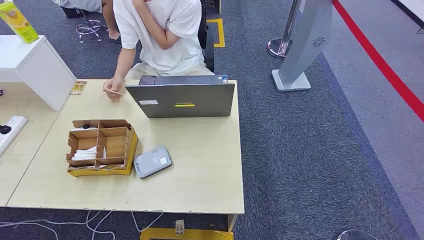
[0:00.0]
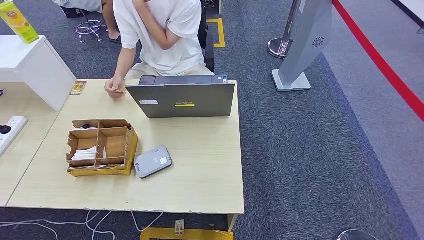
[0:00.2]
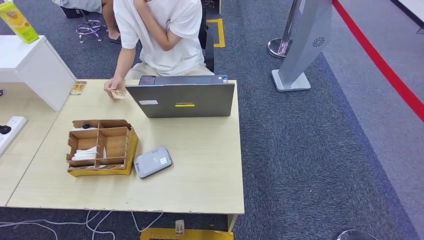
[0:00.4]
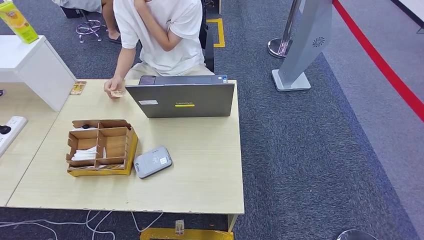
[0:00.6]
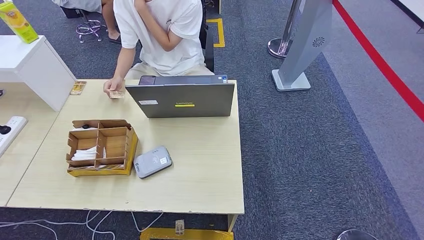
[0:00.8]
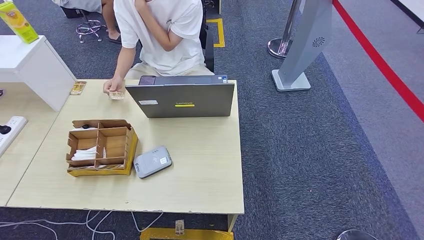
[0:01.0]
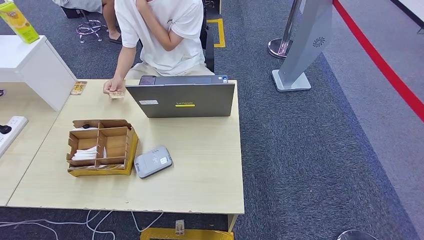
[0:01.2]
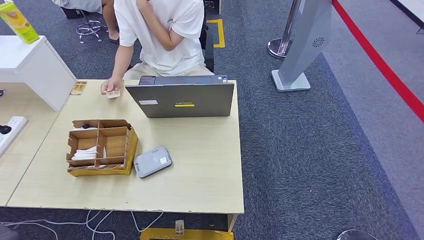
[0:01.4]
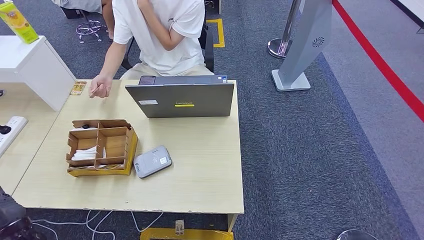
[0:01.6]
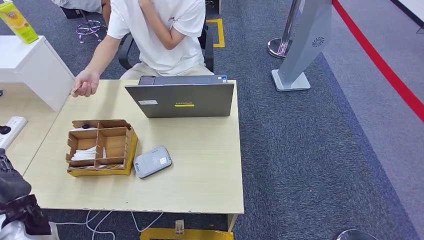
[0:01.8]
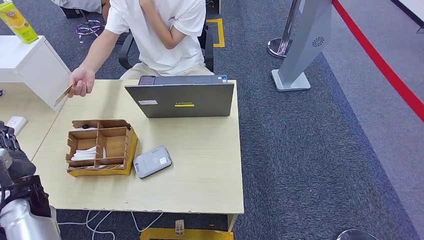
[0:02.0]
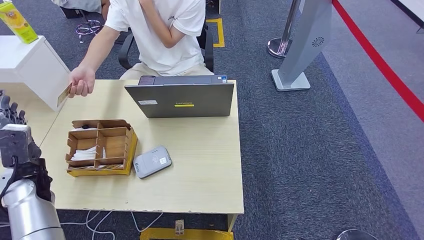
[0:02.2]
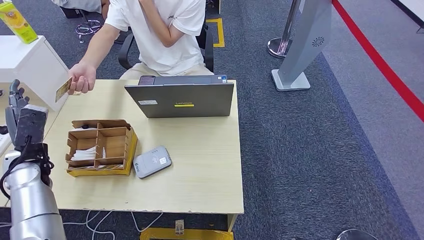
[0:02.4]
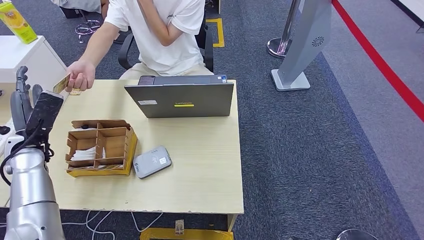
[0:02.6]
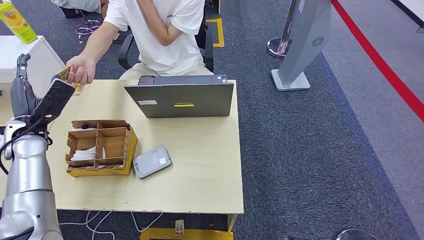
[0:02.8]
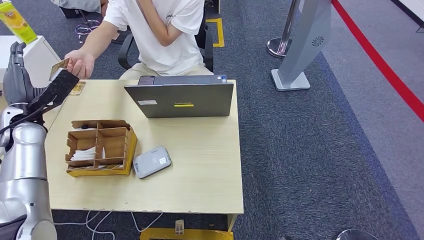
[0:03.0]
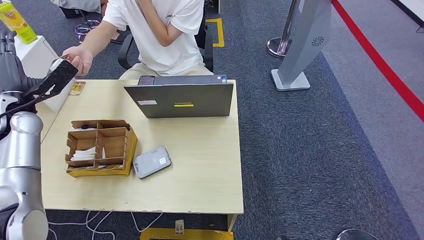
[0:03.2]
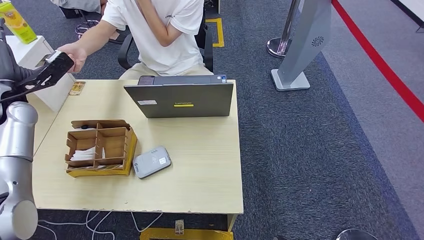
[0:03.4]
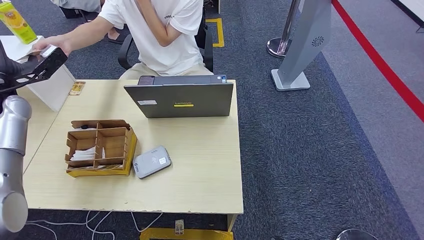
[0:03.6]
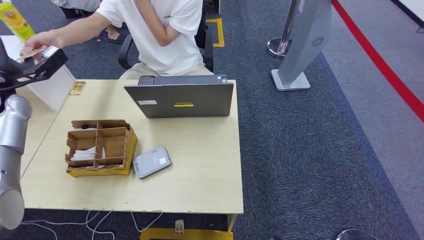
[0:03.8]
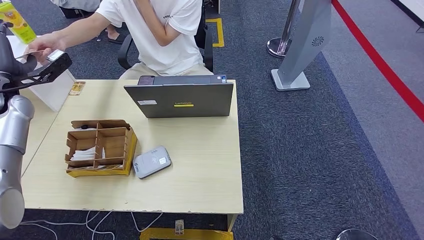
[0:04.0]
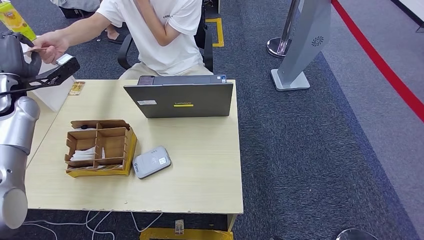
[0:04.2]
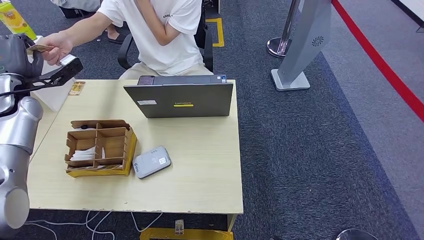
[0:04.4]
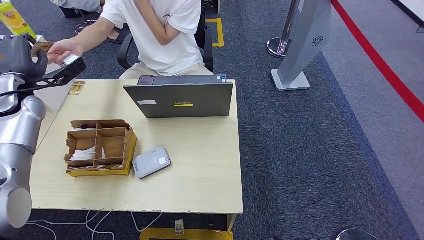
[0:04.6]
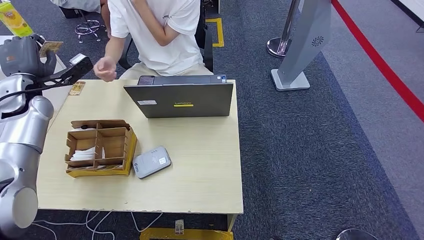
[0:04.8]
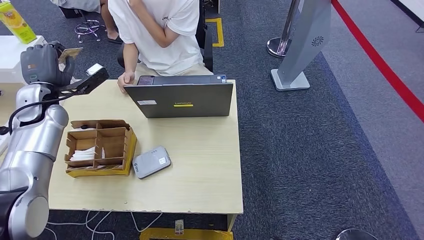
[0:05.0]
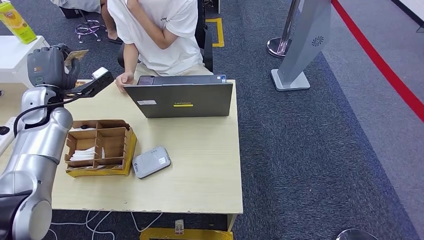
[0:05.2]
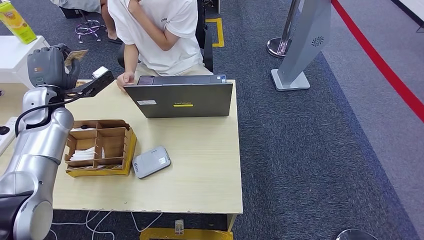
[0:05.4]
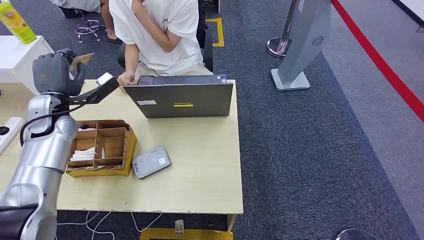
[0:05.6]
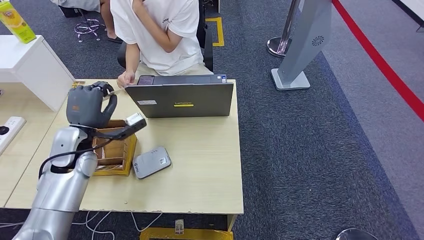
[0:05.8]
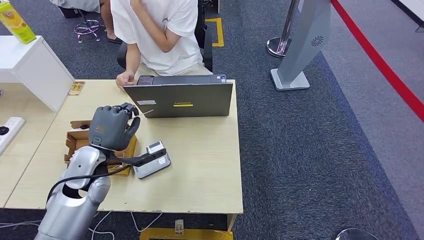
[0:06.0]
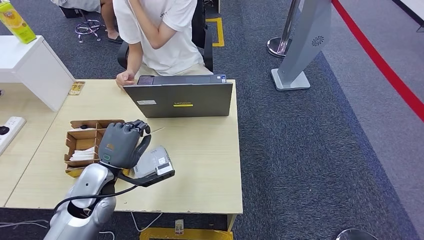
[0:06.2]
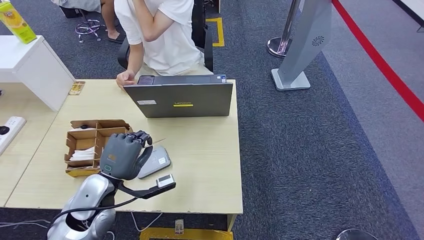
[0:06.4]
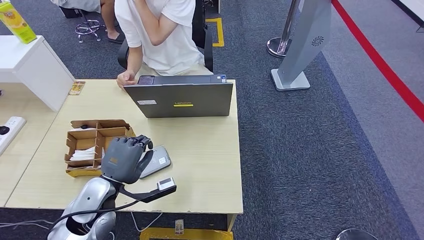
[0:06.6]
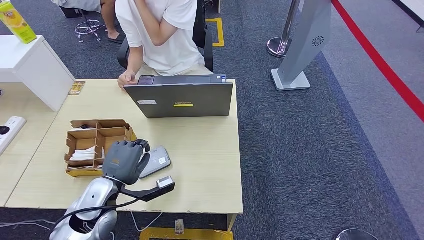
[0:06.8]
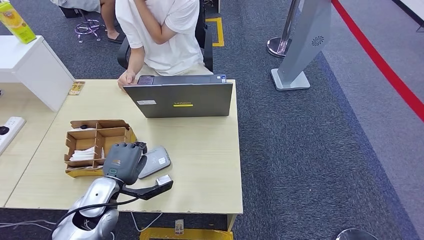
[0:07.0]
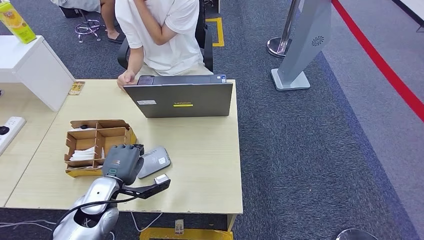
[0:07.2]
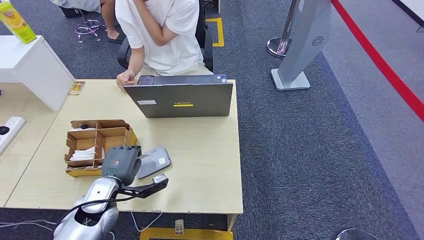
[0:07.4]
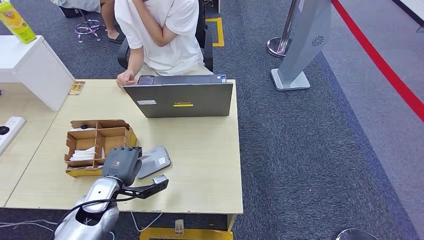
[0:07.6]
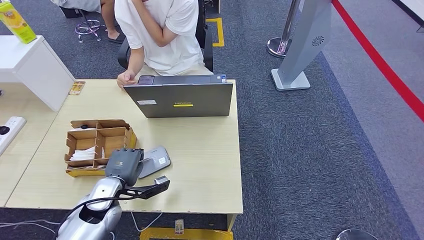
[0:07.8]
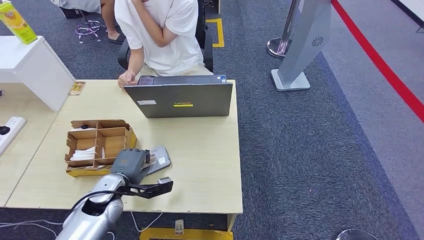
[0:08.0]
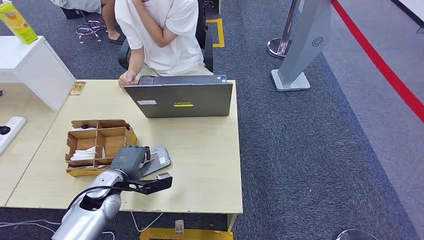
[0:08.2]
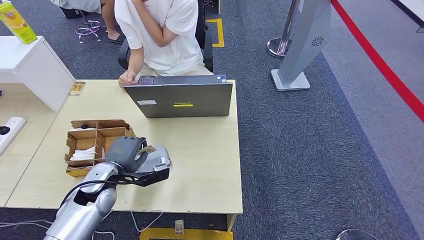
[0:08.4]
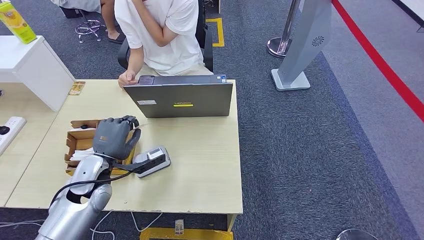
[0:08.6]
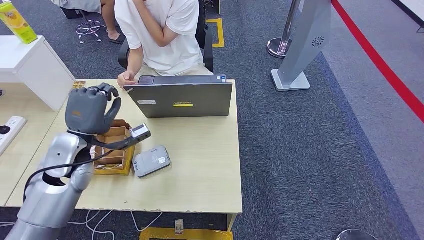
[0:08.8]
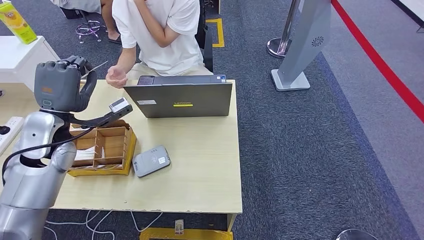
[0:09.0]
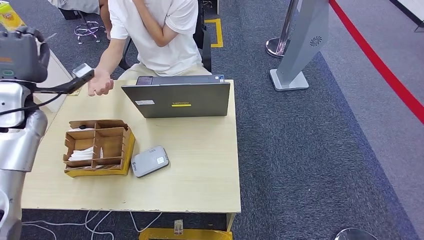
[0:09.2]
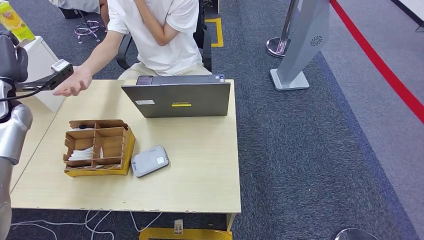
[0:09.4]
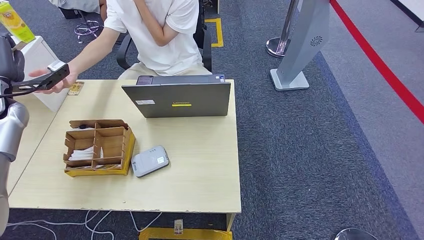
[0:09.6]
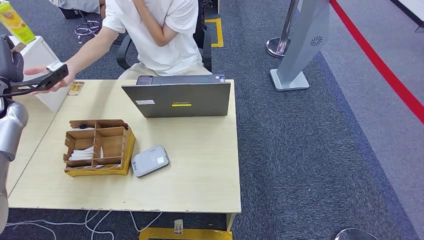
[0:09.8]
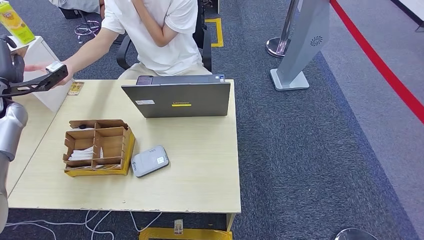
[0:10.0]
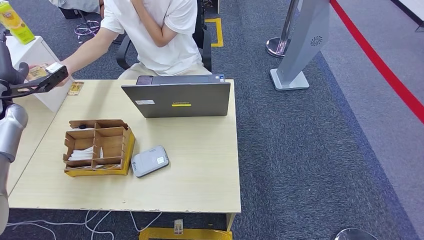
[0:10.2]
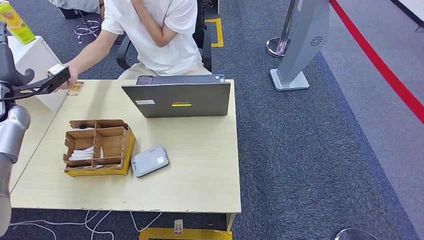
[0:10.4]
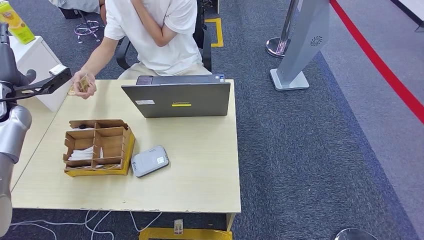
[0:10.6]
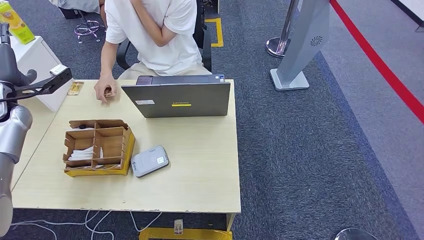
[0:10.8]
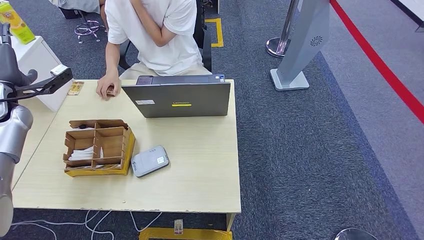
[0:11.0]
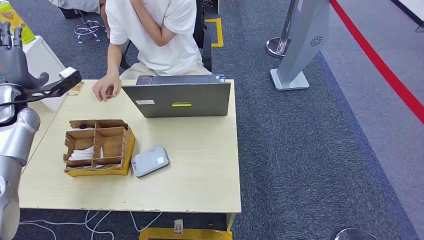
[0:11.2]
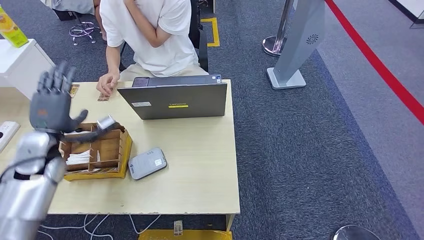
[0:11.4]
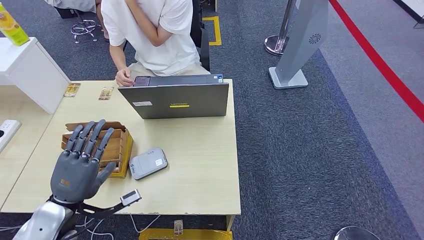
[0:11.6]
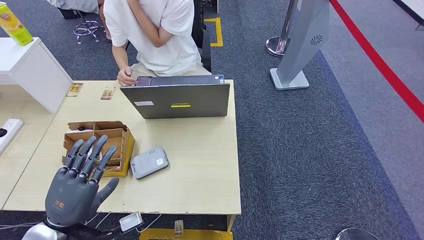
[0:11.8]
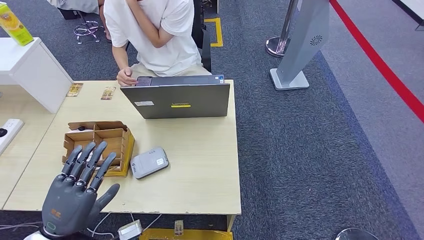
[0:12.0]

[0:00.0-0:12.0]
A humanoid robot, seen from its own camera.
Step, 0:00.0 to 0:04.6: Take the ID card from the person's hand.
Step, 0:04.8 to 0:08.0: Place the ID card on the card reader.
Step, 0:08.2 to 0:10.4: Hand the ID card to the person.
0:01.6 to 0:03.0: The left hand moves forward and upward, some 30 cm.
0:03.0 to 0:04.4: The left hand heads upward, covering about 5 cm.
0:04.4 to 0:06.0: The left hand moves to the right, backward and downward, about 25 cm.
0:06.0 to 0:07.6: The left hand travels downward and backward by approximately 10 cm.
0:07.6 to 0:09.0: The left hand is displaced upward and forward by about 20 cm.
0:09.0 to 0:10.4: The left hand shifts about 15 cm to the left and forward.
0:10.4 to 0:12.0: The left hand travels backward, to the right and downward by roughly 35 cm.

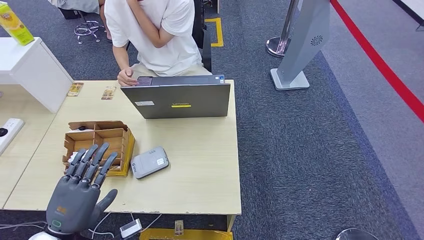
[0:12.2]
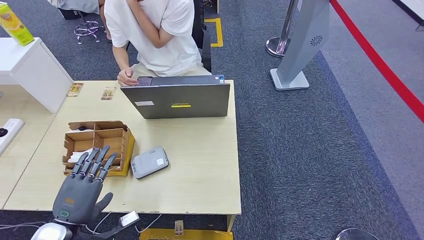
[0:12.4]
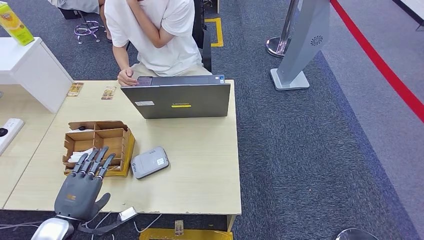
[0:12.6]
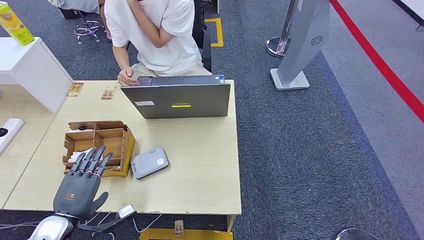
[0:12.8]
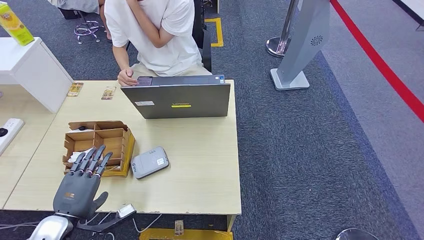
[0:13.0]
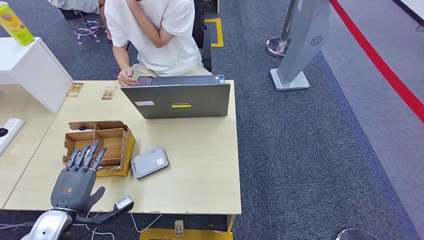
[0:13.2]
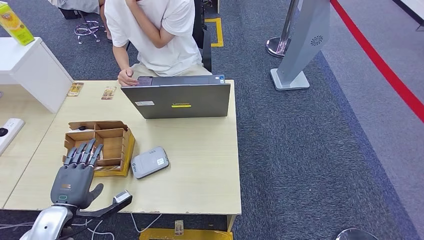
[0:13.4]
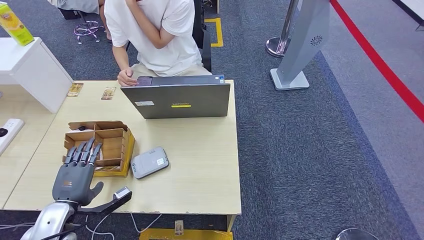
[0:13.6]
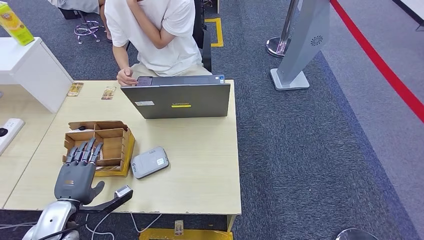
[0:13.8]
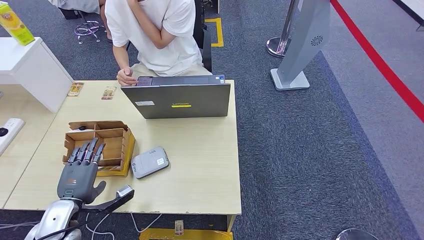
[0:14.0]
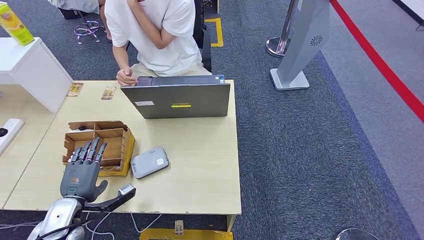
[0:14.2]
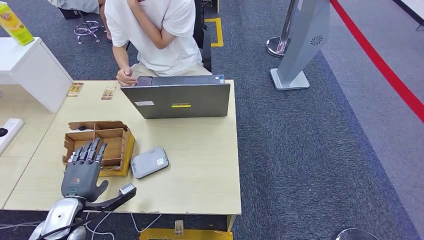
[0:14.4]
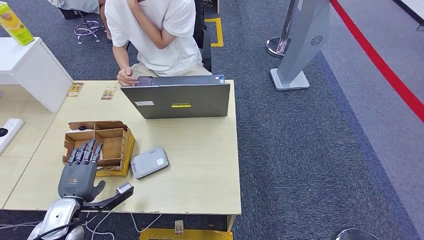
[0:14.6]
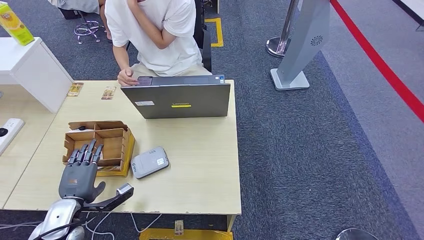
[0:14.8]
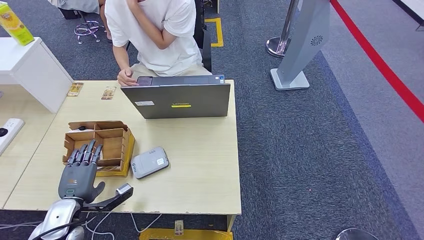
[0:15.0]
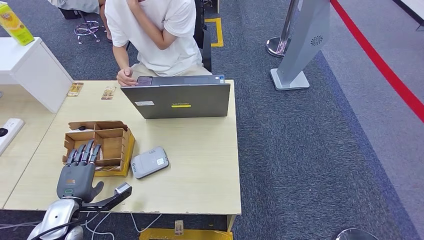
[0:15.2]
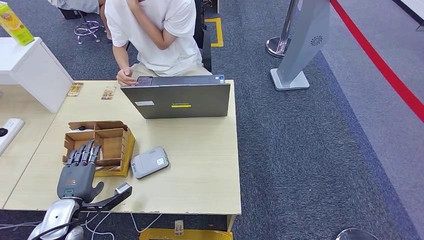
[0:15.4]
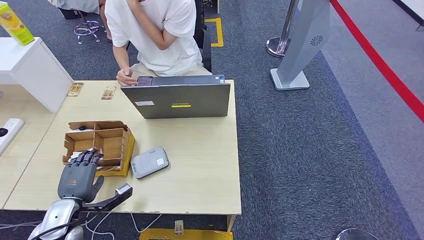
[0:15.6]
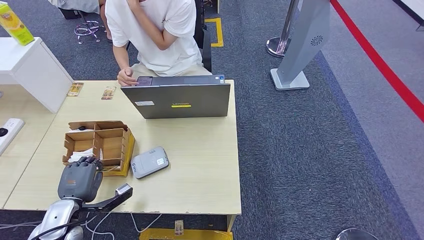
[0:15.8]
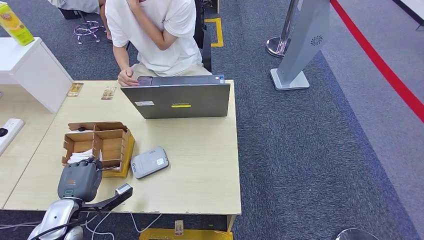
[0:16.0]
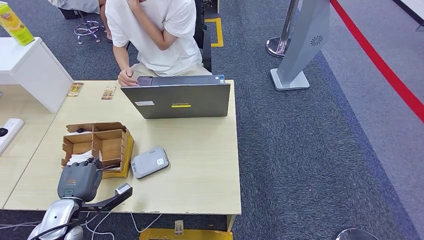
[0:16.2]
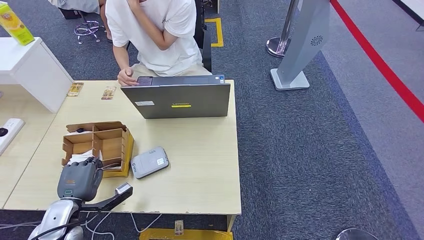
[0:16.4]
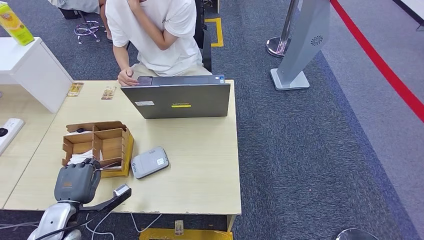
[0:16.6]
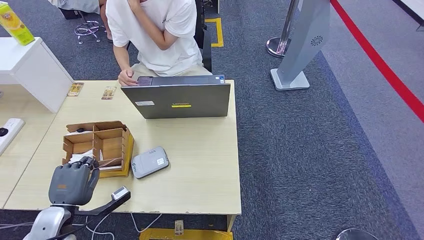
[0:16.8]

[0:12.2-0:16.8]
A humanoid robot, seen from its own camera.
0:12.2 to 0:13.8: The left hand travels downward and forward by some 10 cm.
0:13.8 to 0:16.8: The hands make only small movements.
